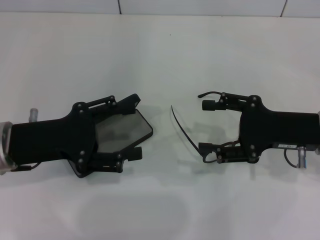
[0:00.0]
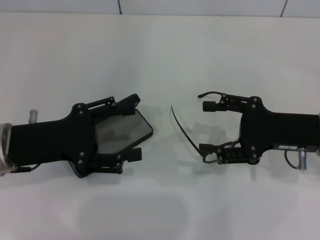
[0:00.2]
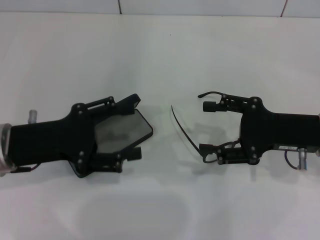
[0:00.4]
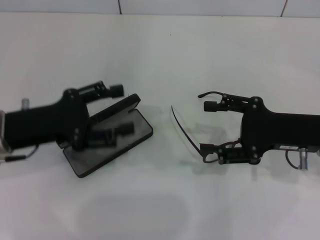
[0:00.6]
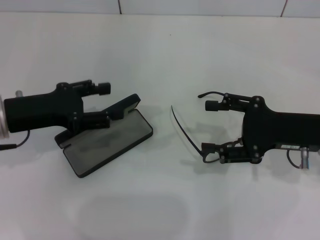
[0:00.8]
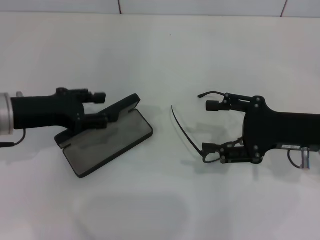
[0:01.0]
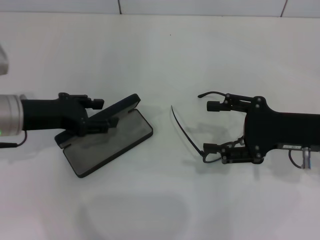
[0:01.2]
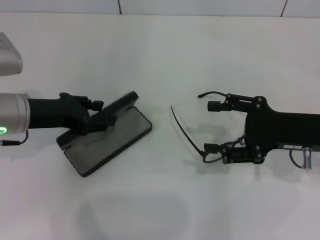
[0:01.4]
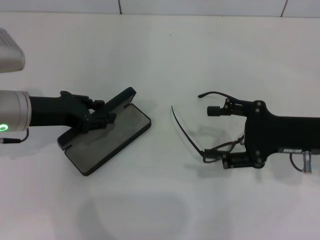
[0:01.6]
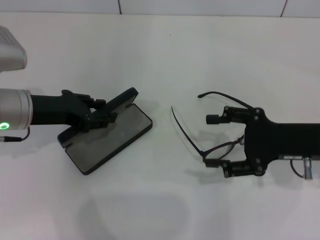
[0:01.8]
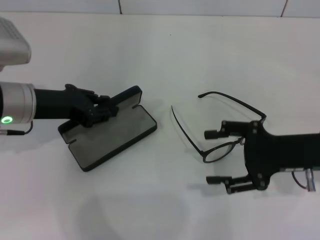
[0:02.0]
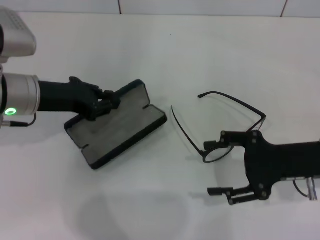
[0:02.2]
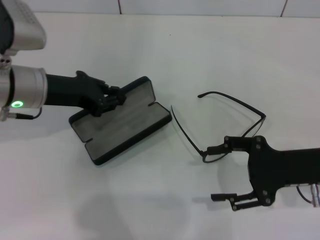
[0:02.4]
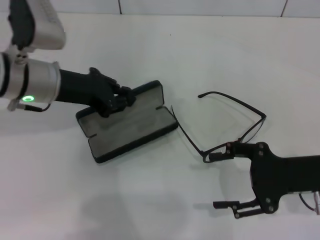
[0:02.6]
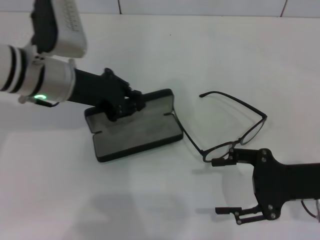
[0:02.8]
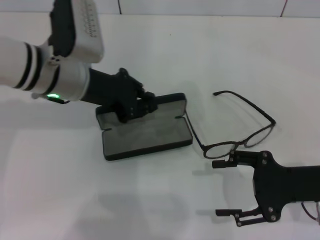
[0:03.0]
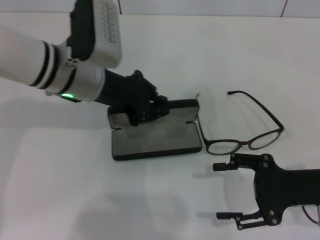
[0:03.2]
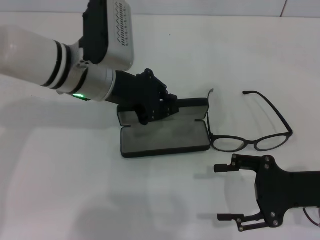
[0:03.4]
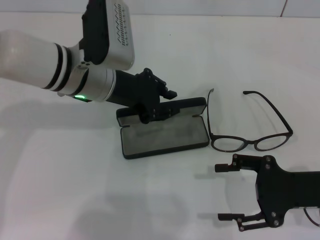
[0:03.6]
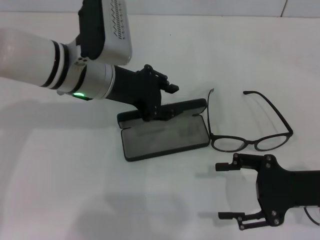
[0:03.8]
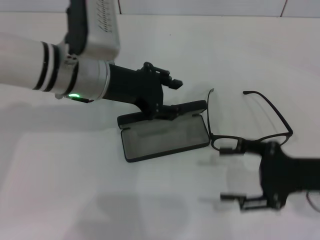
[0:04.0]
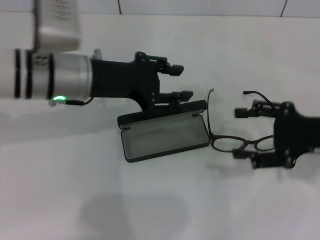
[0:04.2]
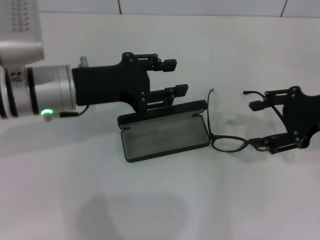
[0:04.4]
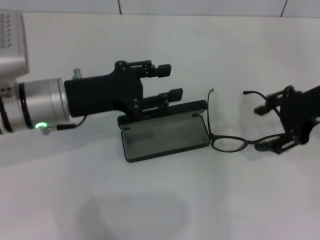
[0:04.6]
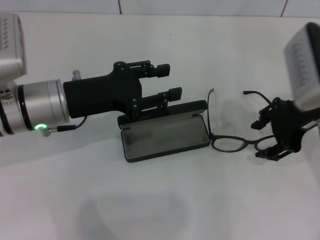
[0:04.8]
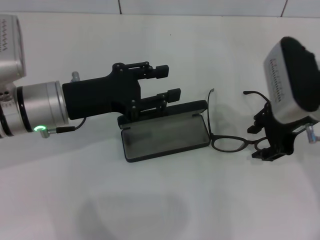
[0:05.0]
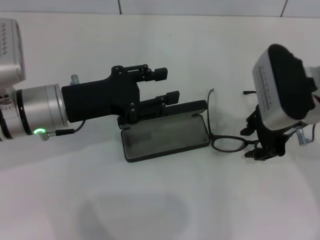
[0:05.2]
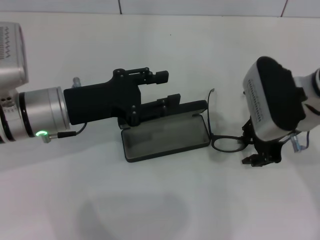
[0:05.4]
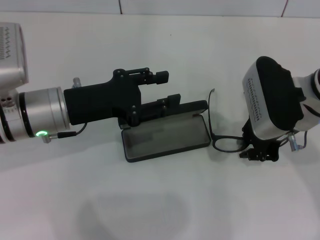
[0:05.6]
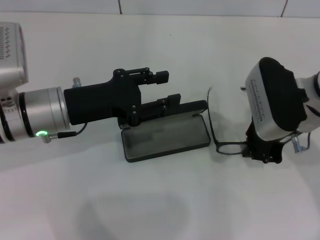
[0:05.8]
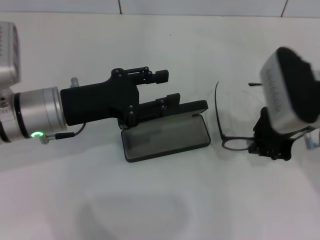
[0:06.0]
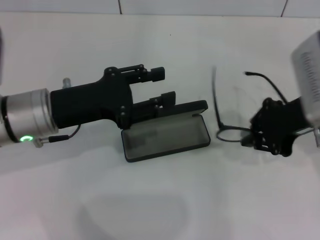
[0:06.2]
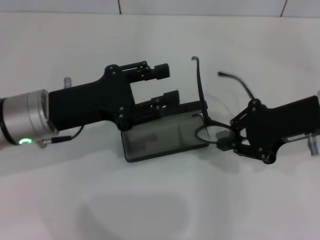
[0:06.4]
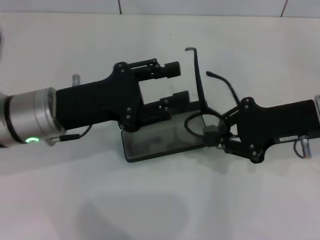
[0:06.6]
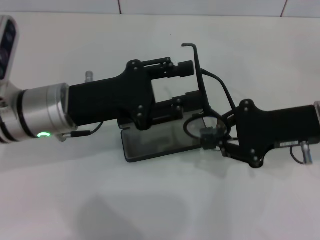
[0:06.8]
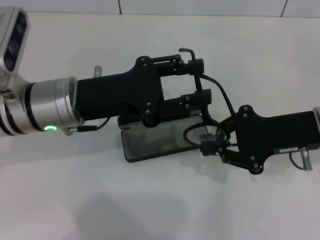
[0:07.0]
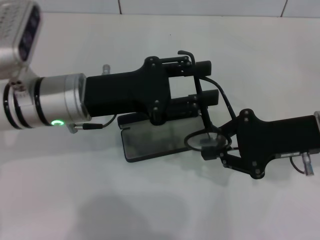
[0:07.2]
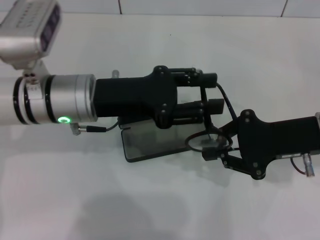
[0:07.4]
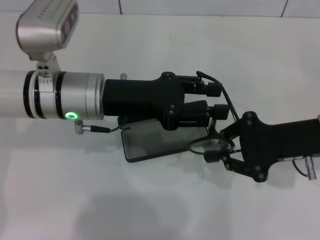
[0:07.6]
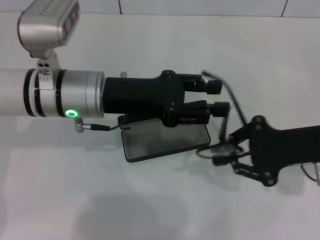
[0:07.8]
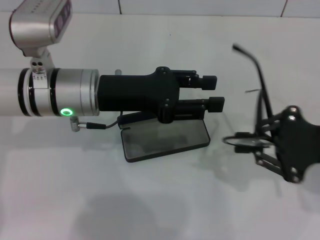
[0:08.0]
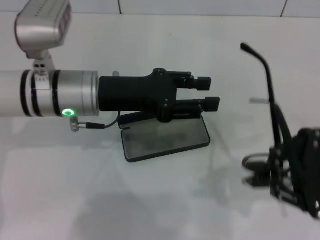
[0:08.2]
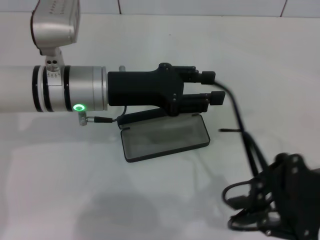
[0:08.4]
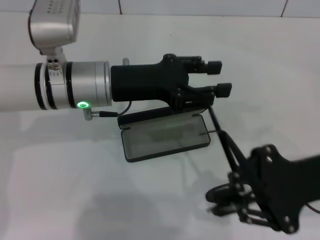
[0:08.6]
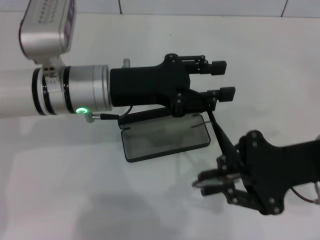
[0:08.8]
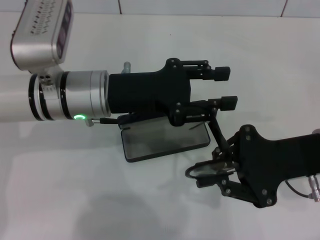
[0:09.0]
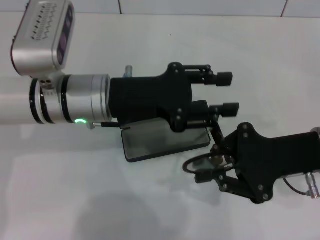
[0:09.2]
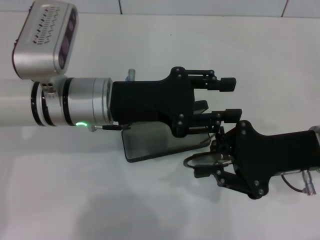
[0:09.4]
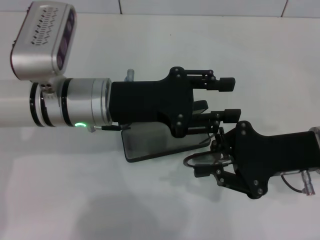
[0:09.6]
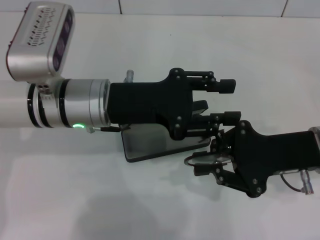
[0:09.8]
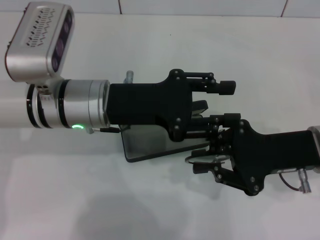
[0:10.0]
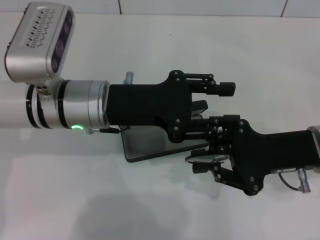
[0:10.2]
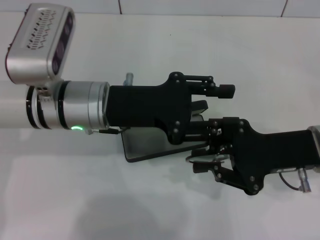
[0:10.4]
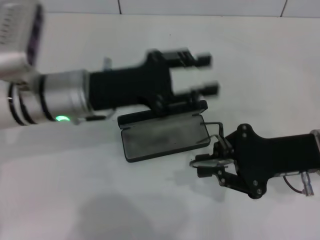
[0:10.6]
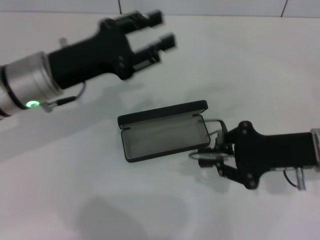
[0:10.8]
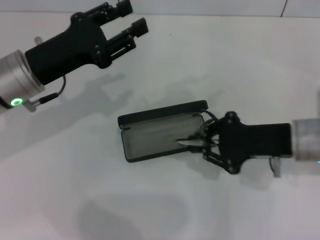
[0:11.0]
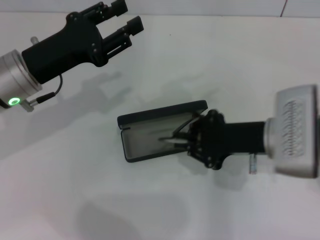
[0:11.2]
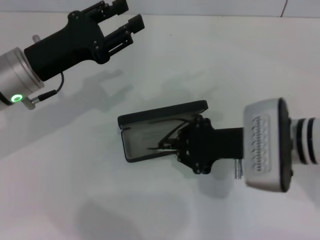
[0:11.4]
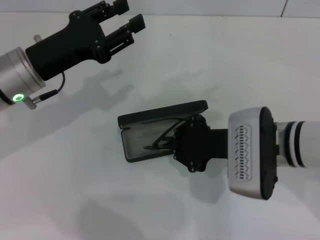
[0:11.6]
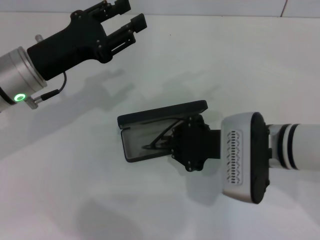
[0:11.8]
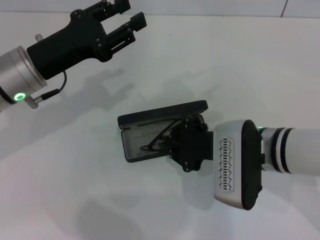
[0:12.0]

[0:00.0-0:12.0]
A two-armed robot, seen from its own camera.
Step, 0.0 to 1.2 s: Grab the glasses case with your left hand.
Step, 1.4 to 3.8 s: Place the glasses case in the center of the table with your left hand.
Step, 4.0 to 5.6 s: Grab the eyeglass frame with your right hand.
Step, 5.8 to 10.4 s: Fold the frame with your left hand.
0.0 to 1.6 s: The left gripper travels forward by approximately 5 cm, and closes.
1.6 to 3.0 s: The left gripper travels to the right by about 10 cm, and closes up; the right gripper shifts by roughly 5 cm.
3.0 to 4.4 s: The right gripper heads upward and forward, covering approximately 10 cm, while the left gripper opens up.
4.4 to 6.0 s: The right gripper goes some 10 cm to the left, and closes up.
6.0 to 7.6 s: The left gripper shifts some 5 cm to the right, while the right gripper shifts by about 5 cm.
10.4 to 12.0 s: Both grippers move to the left, some 10 cm.

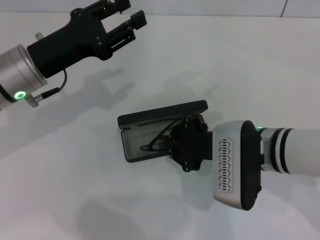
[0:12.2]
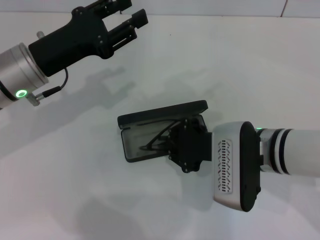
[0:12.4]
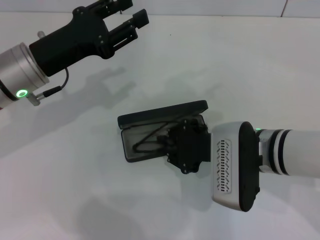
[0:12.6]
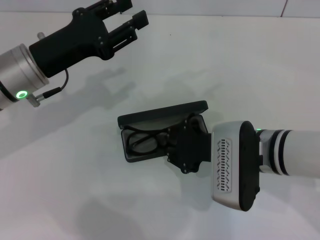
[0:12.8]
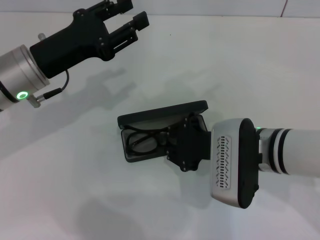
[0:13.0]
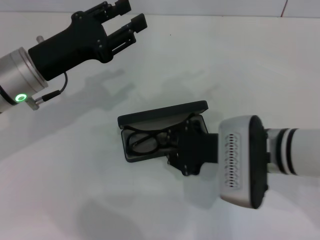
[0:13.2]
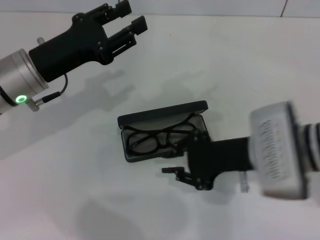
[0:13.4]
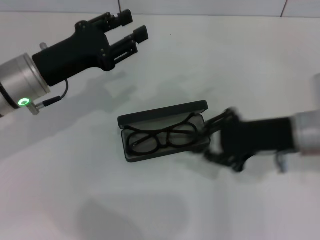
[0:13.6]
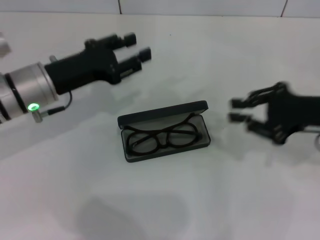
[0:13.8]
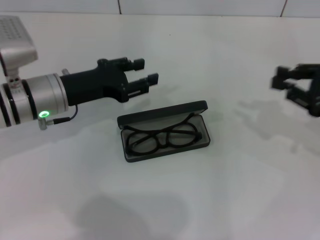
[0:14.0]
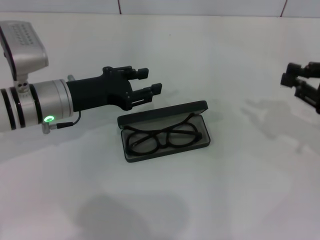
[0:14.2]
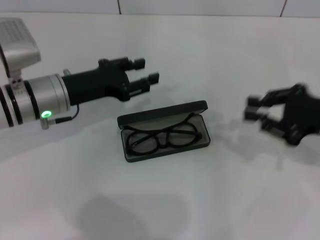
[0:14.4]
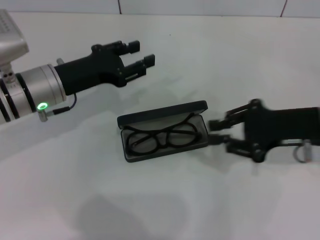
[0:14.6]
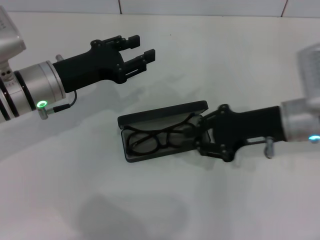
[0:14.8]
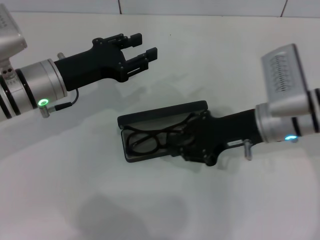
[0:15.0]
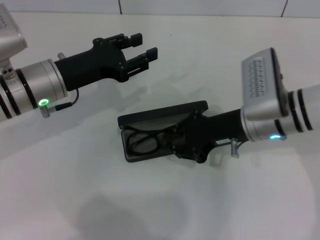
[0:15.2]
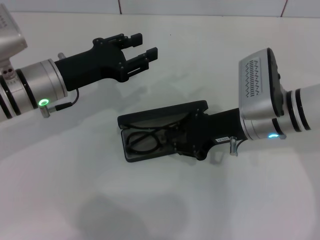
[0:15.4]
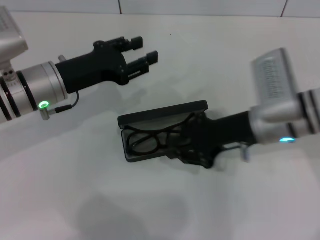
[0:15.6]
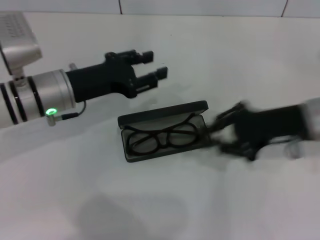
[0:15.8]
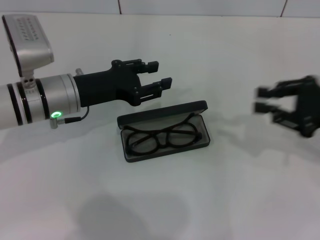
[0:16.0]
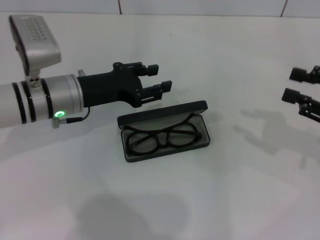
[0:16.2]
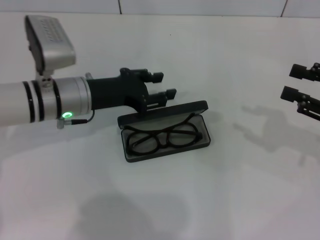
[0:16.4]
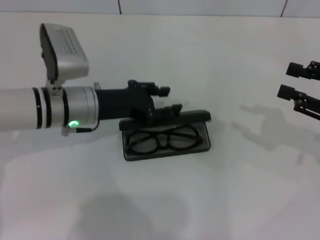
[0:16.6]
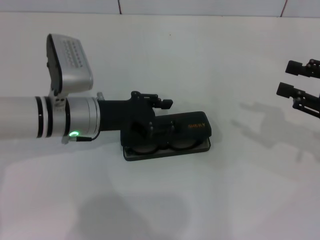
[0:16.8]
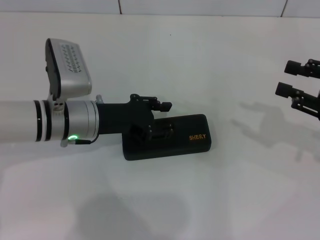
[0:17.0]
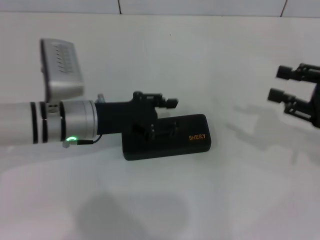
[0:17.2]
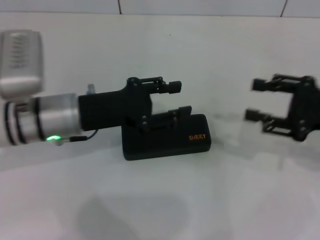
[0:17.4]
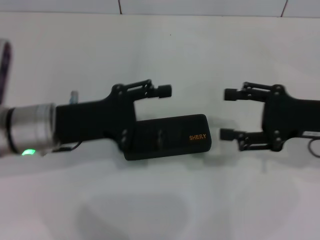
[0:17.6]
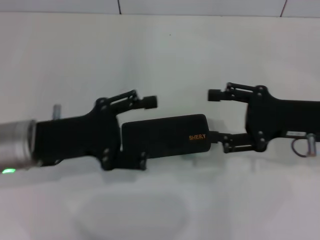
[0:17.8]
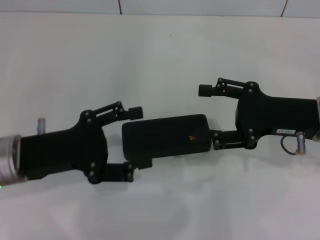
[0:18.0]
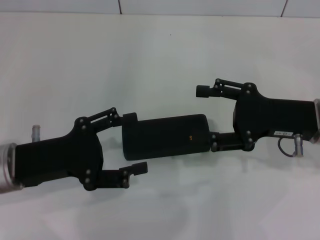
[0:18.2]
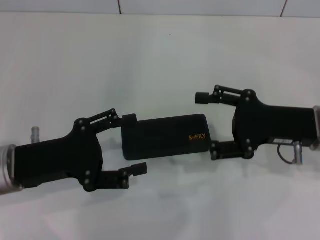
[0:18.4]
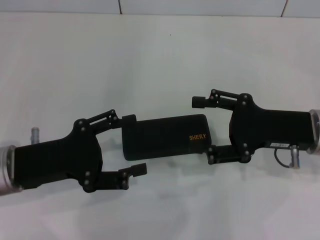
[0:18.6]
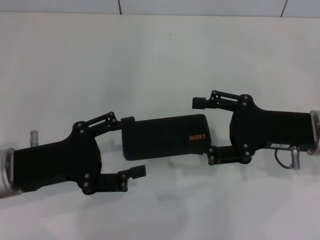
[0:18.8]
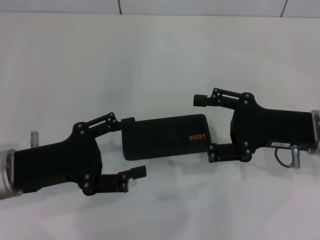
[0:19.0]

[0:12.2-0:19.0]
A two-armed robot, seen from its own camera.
Step, 13.4 to 17.0 s: Close the glasses case with your left hand.
12.2 to 13.6 s: The right gripper travels to the right by about 10 cm.
13.6 to 15.0 s: The right gripper reaches roughly 15 cm to the right, then returns.
15.0 to 16.2 s: The right gripper heads to the right, covering some 15 cm.
16.2 to 17.6 s: The right gripper moves to the left, about 5 cm, and opens its fingers, while the left gripper travels backward by about 5 cm.
17.6 to 19.0 s: The left gripper travels backward by approximately 5 cm.

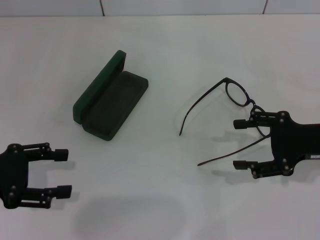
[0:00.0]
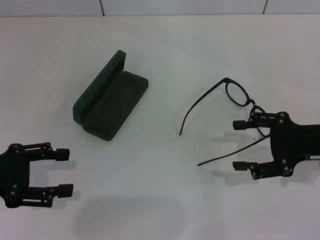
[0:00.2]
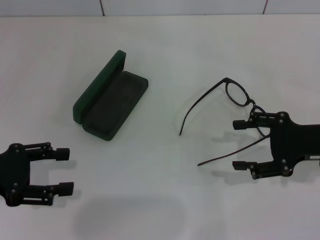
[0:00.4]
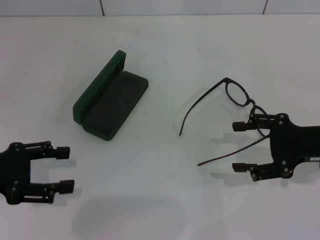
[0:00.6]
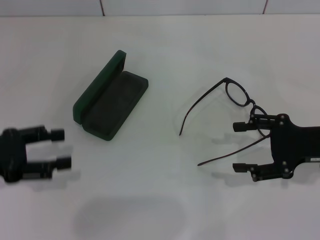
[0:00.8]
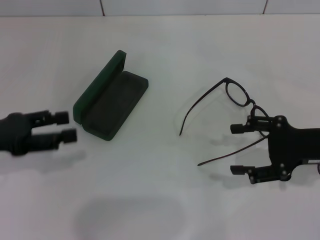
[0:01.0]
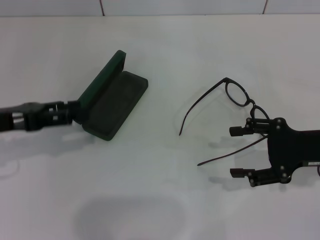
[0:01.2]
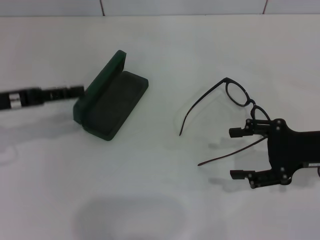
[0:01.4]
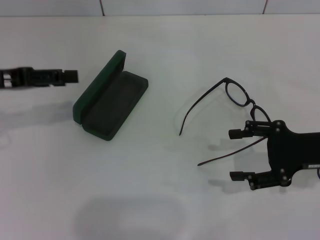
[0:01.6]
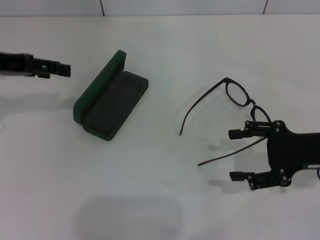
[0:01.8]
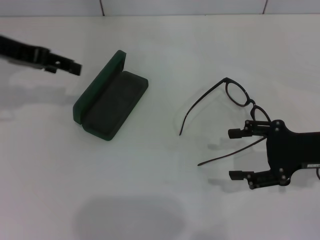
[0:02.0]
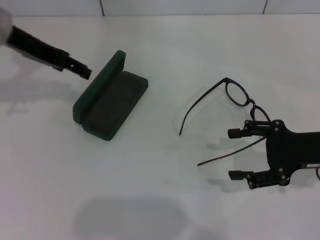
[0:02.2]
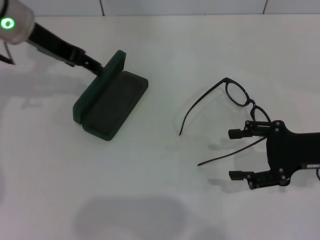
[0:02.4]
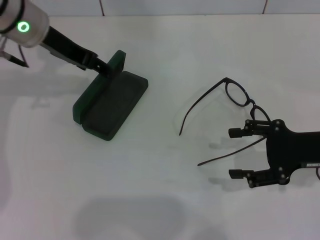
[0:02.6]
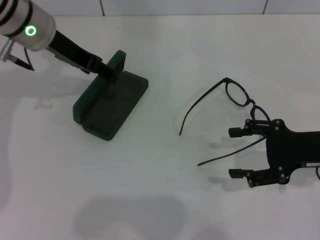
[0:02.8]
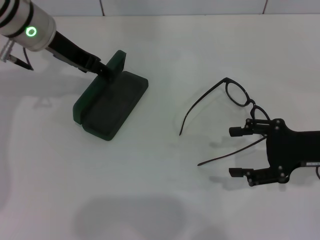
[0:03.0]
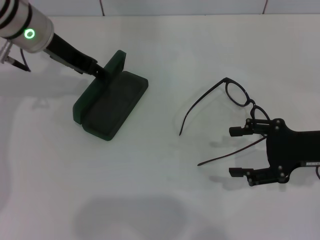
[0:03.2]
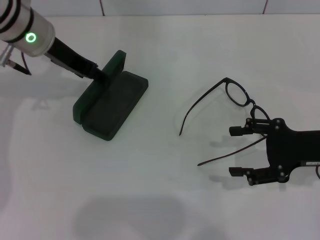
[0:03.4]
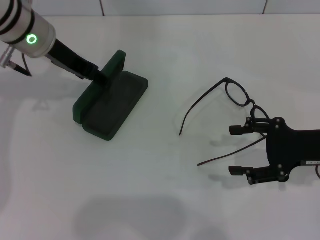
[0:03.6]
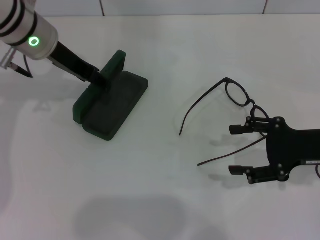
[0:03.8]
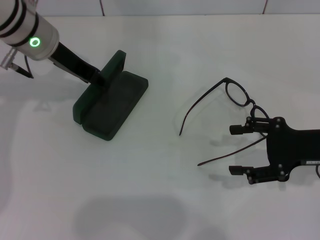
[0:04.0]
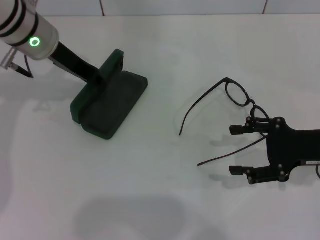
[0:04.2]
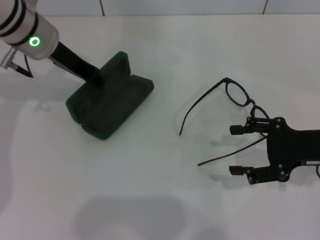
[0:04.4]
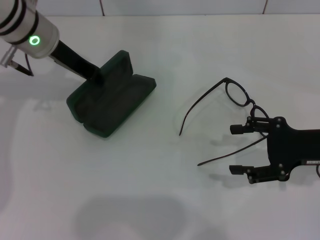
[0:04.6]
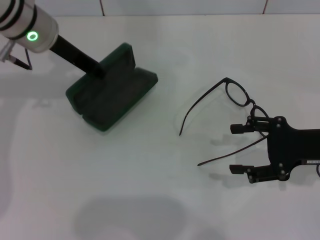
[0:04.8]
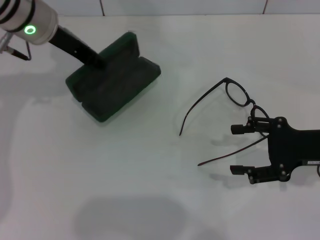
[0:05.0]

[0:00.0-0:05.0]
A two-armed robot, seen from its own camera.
Step, 0.0 to 4.2 s: Grab the glasses case with your left hand.
0.0 to 1.6 s: The left gripper goes some 10 cm forward.
1.6 to 3.4 s: The left gripper moves to the right and forward, some 15 cm.
3.4 to 5.0 s: The left gripper closes.
